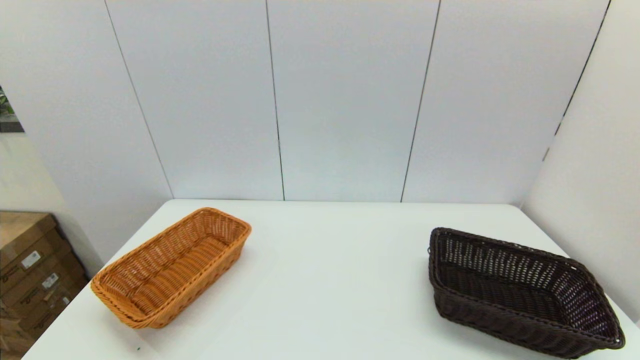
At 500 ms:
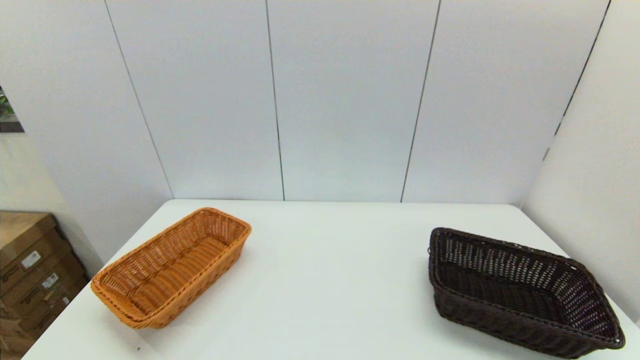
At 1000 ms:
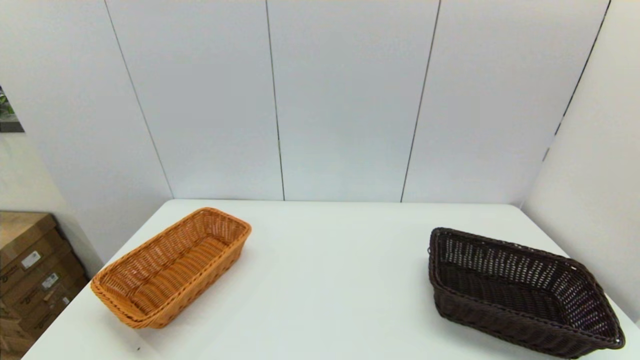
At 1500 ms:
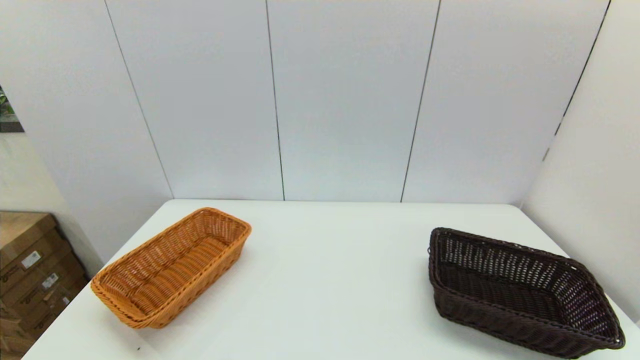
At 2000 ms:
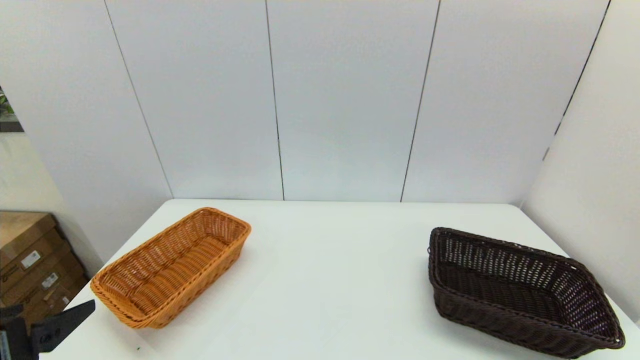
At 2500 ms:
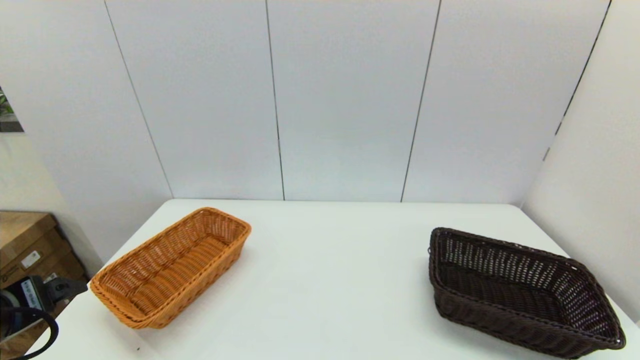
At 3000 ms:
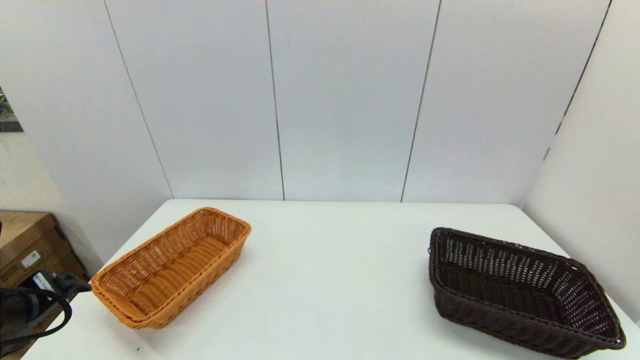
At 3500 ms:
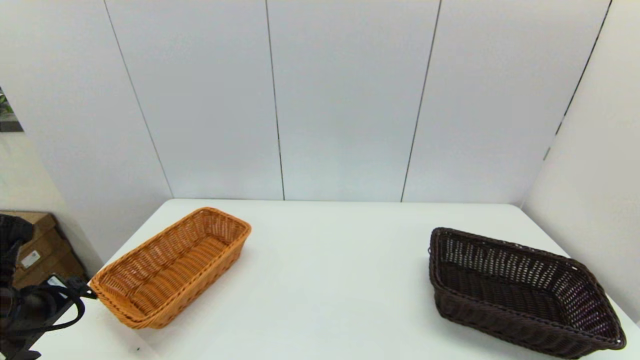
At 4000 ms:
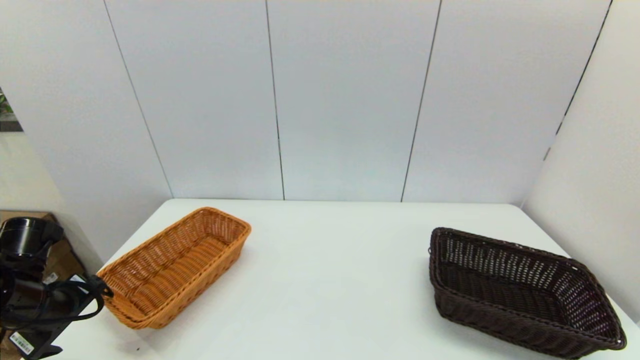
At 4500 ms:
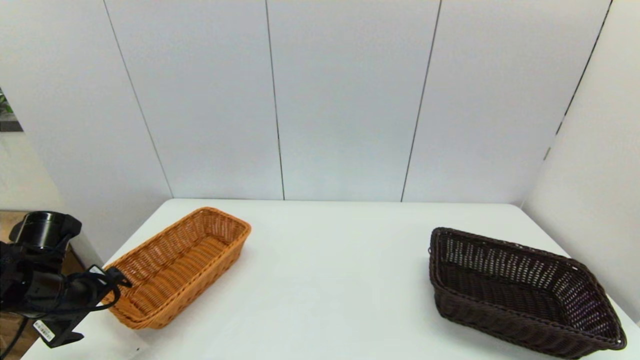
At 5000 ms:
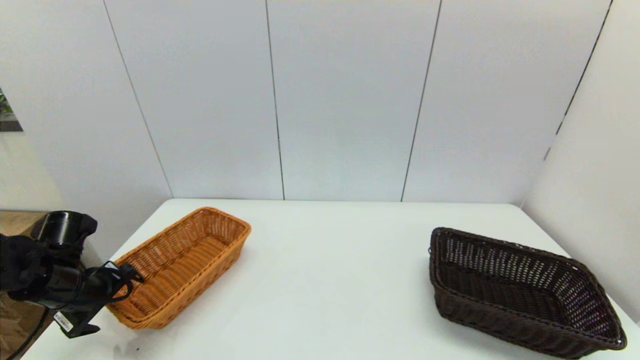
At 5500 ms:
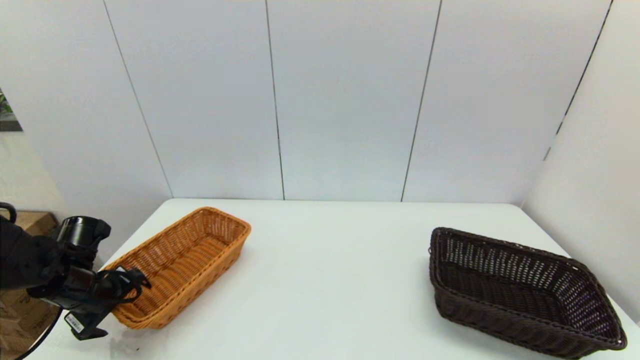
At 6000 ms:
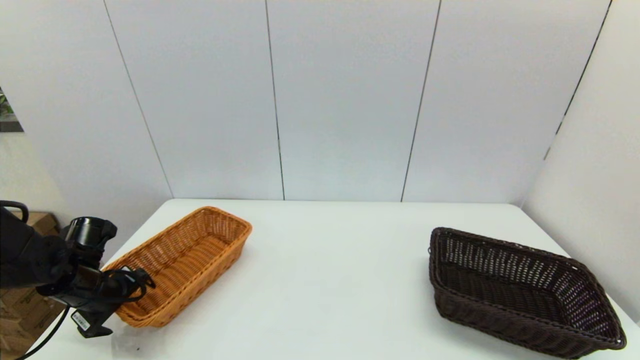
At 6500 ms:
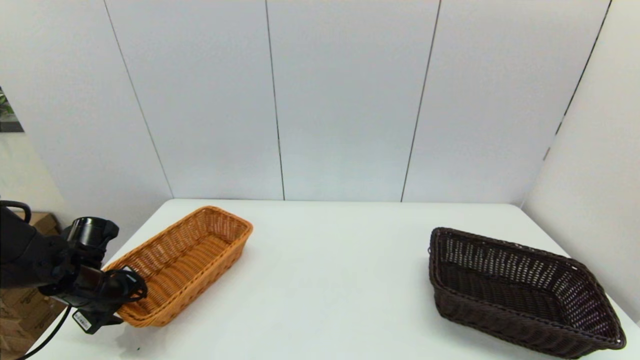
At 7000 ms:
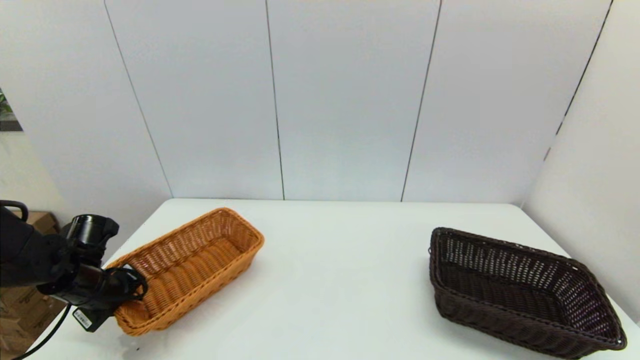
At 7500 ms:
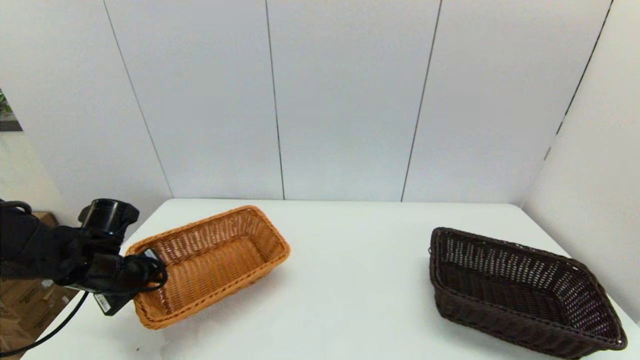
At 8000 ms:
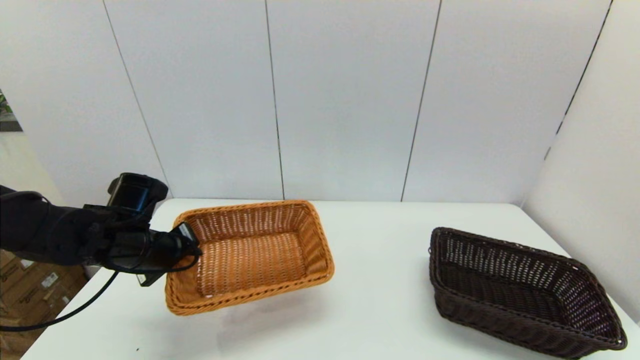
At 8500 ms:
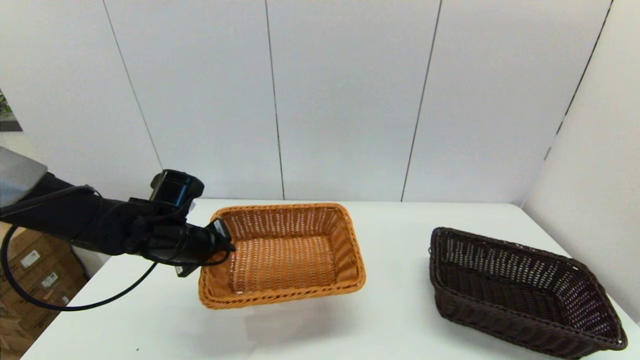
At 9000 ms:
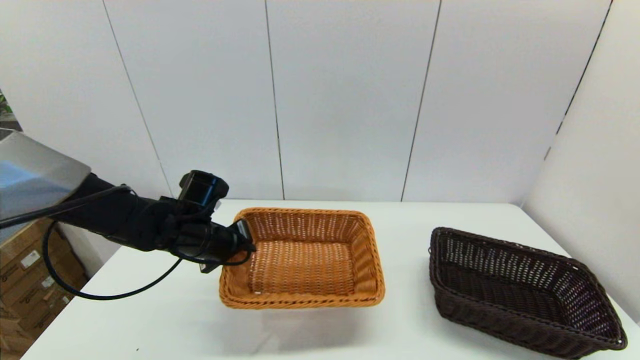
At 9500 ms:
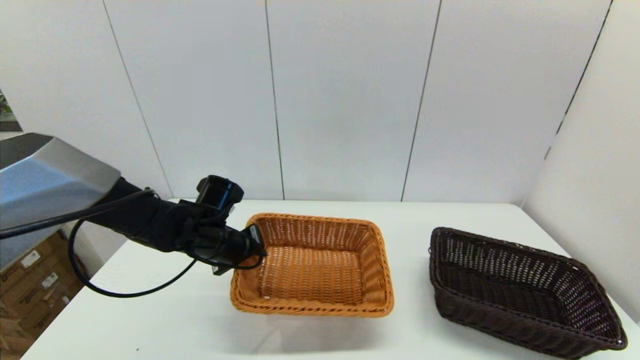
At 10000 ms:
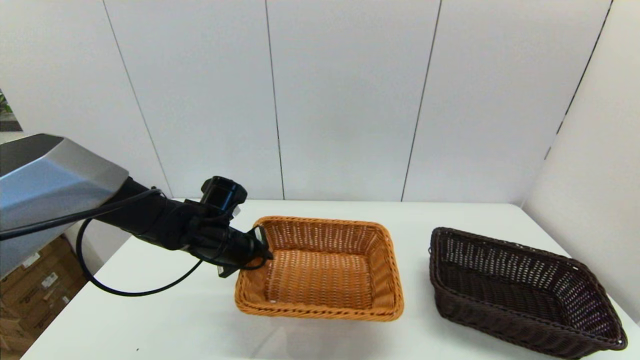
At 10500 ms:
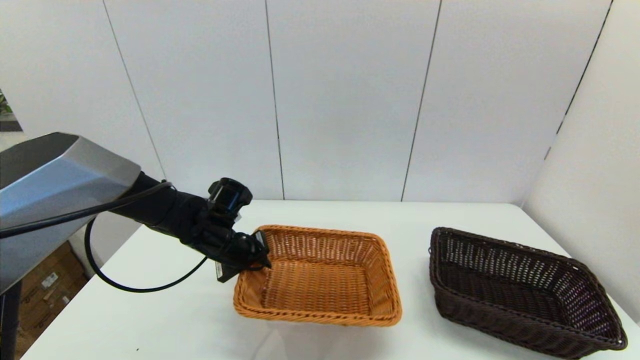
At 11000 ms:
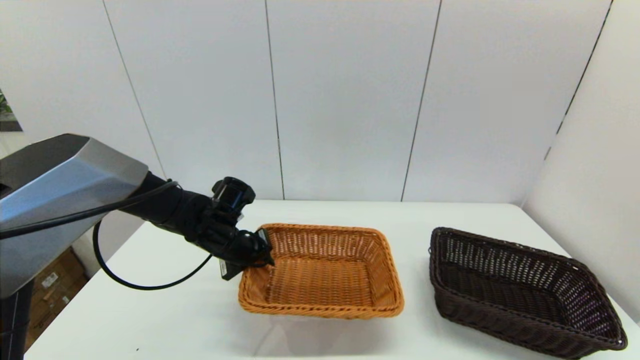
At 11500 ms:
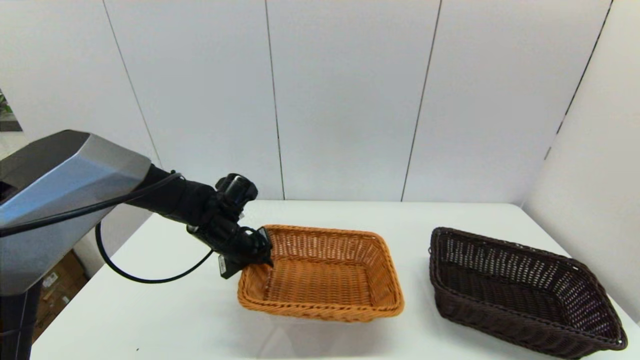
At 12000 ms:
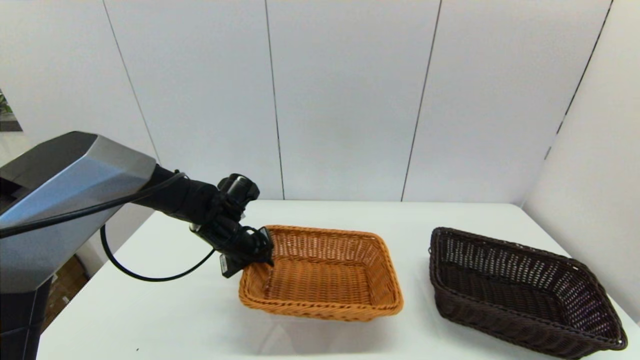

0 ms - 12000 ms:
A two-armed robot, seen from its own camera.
Task of the whole recording: stack a basket on top of another basket.
Step, 2000 ms - 6500 ms: Grasp the light basket with the left gripper.
0 ms - 2000 ms: The left gripper travels forward and upward by about 15 cm.
2000 ms - 4000 ms: The left gripper goes about 15 cm forward, downward and to the left.
4000 ms - 6000 ms: The left gripper moves forward and downward, some 10 cm.
6000 ms - 8000 ms: The left gripper shifts about 15 cm to the right and upward, and closes up.
8000 ms - 10000 ms: The left gripper goes some 10 cm to the right.
10000 ms - 12000 ms: The grippers stay close to where they were, moving slightly.

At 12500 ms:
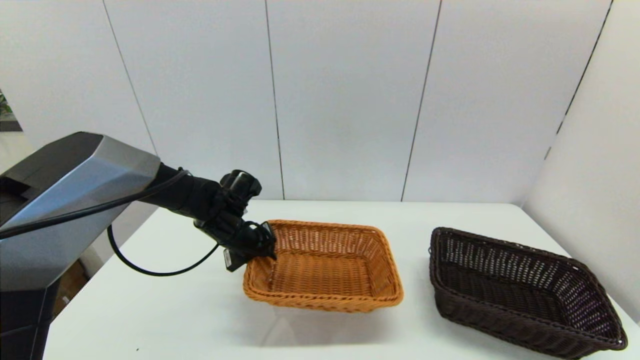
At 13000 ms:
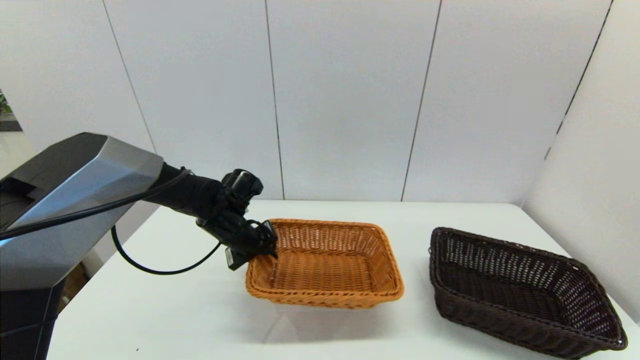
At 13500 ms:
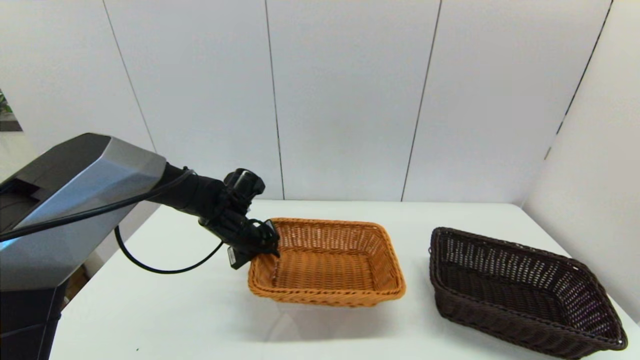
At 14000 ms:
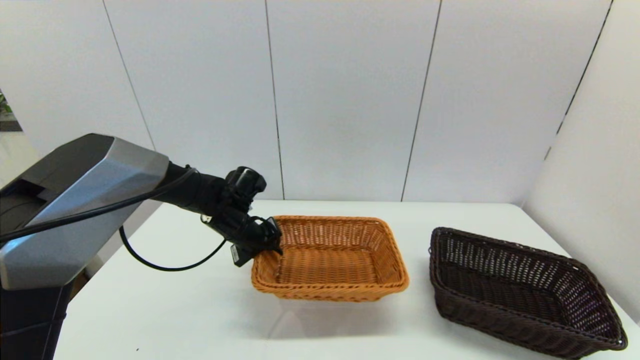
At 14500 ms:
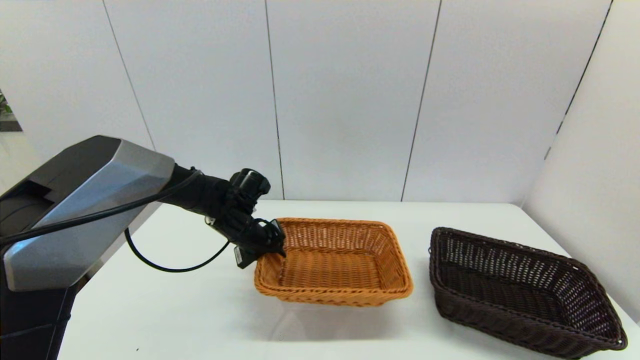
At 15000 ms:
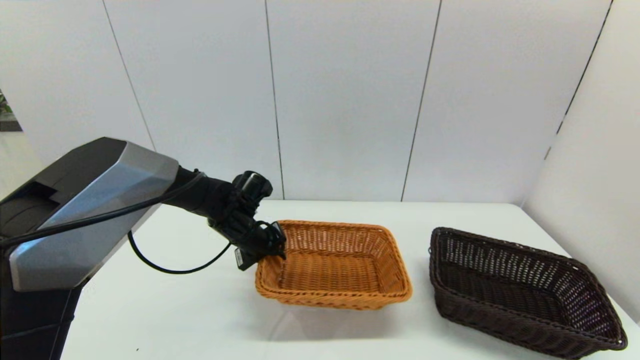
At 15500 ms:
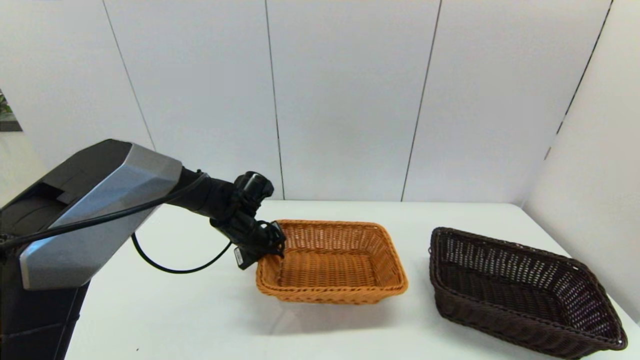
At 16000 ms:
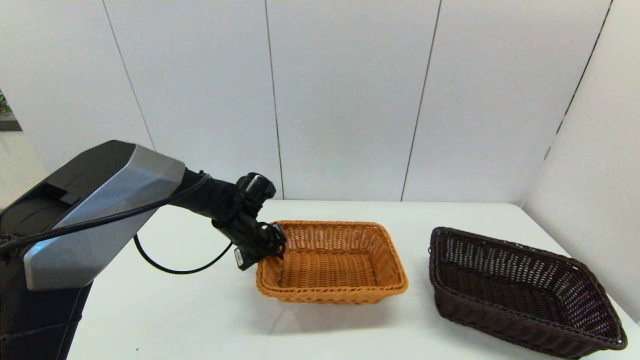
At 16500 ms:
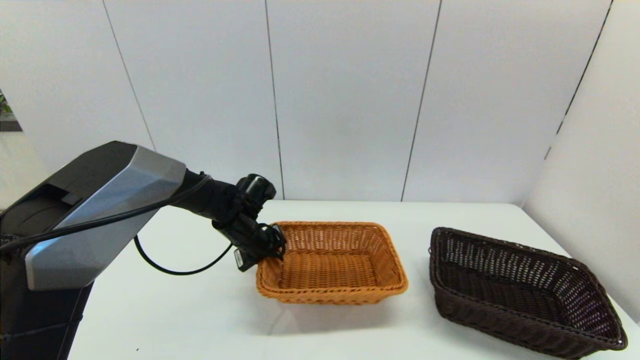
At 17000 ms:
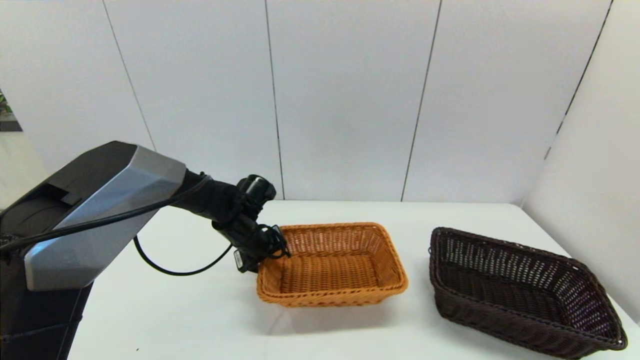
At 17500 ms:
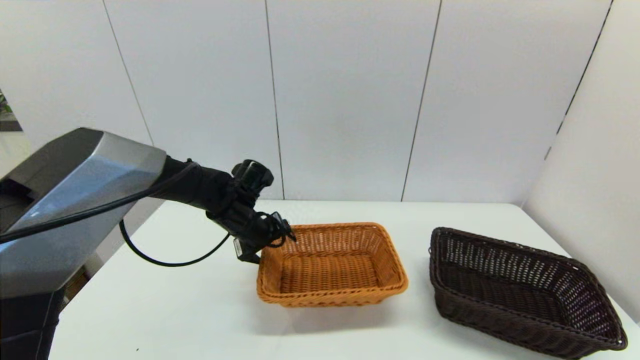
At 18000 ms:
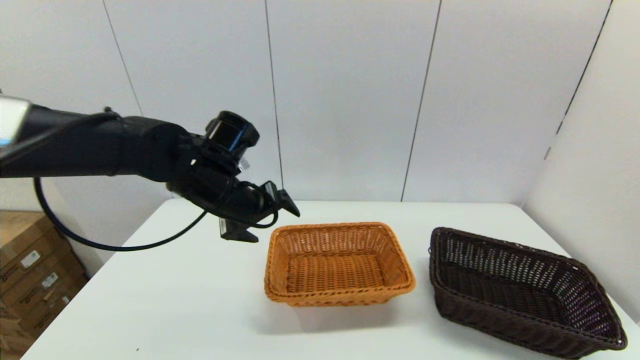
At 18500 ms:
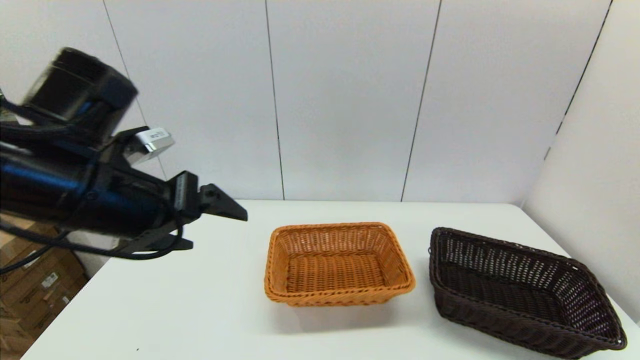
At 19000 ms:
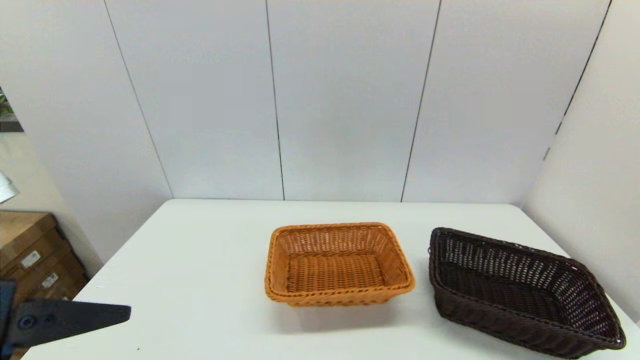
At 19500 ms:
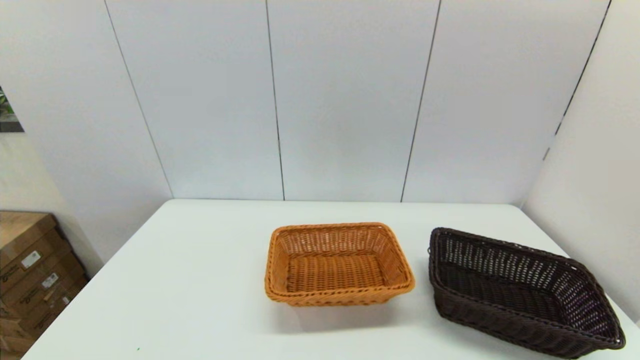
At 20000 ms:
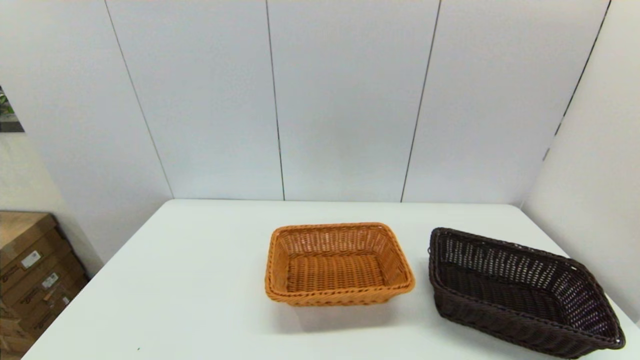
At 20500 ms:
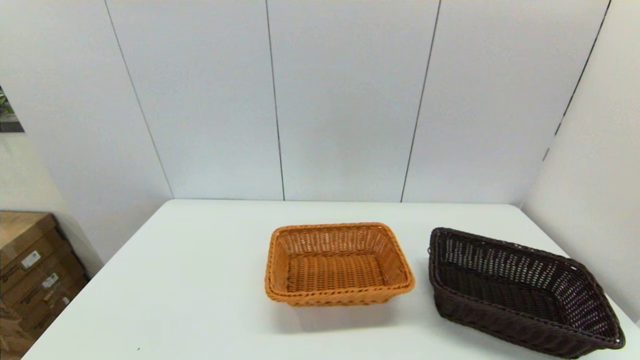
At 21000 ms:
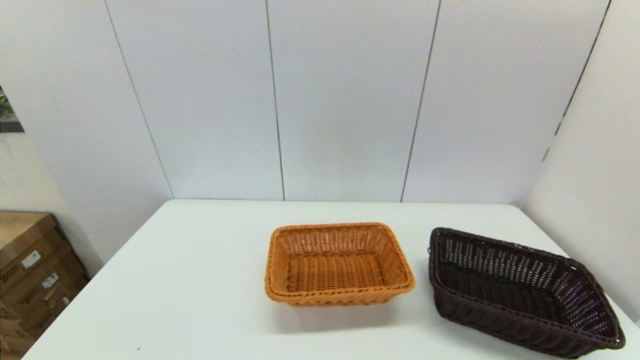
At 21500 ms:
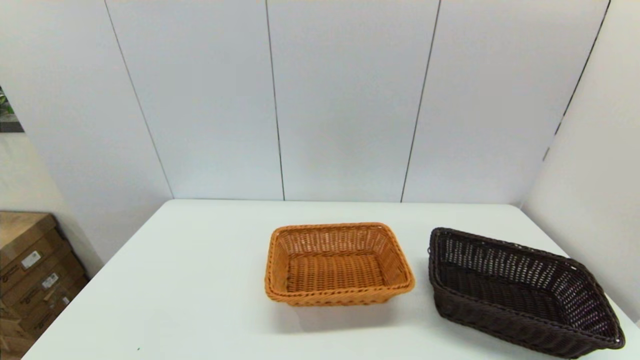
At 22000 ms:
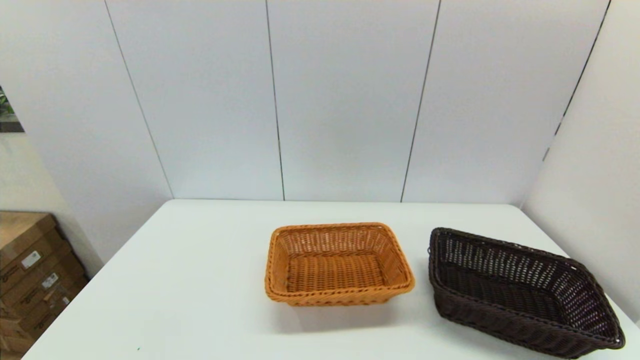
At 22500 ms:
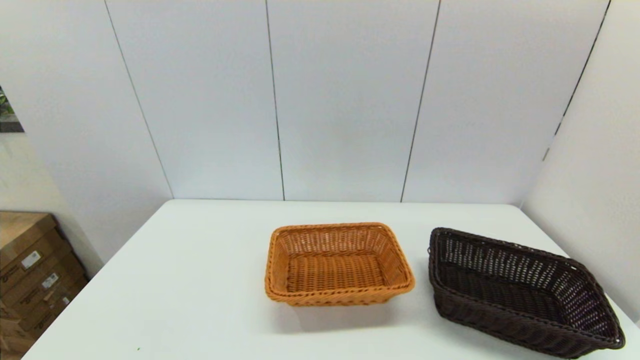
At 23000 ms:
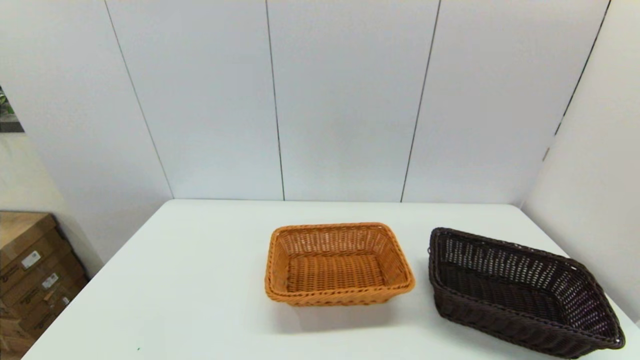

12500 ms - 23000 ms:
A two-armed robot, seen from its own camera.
Task of the whole recording: stack a basket on top of another basket.
Step, 12500 ms - 17500 ms: Place the light basket on the middle of the table with the left gripper.
12500 ms - 16500 ms: The grippers move only a little.
16500 ms - 19000 ms: The left gripper goes roughly 35 cm backward and upward, and opens its fingers.
19000 ms - 21000 ms: The left gripper heads downward and backward, covering approximately 20 cm.
